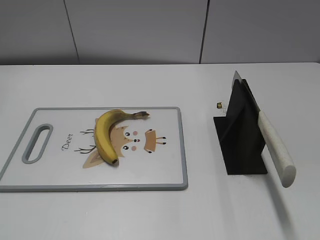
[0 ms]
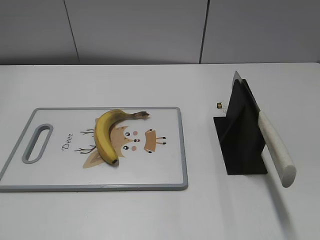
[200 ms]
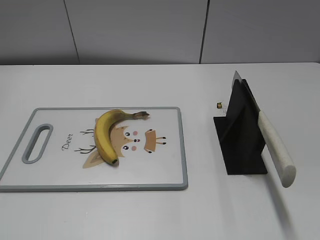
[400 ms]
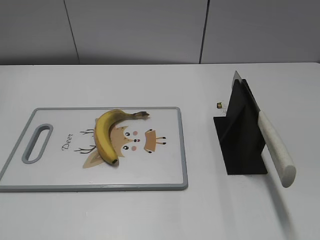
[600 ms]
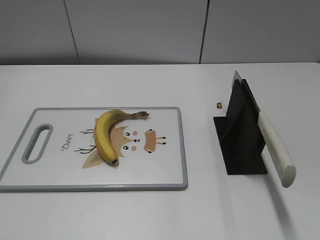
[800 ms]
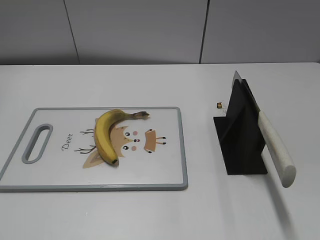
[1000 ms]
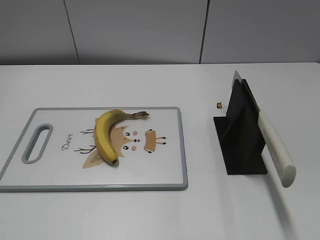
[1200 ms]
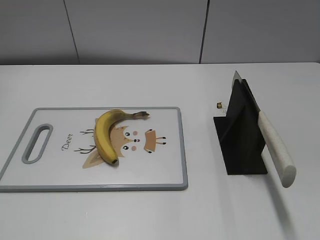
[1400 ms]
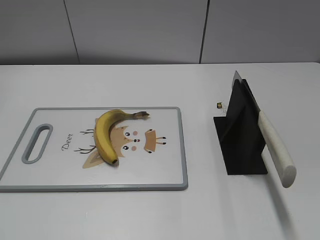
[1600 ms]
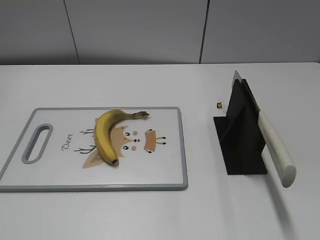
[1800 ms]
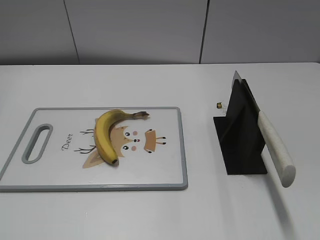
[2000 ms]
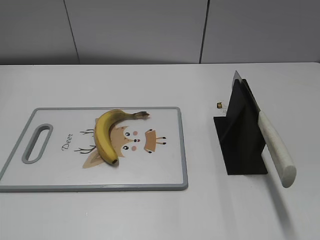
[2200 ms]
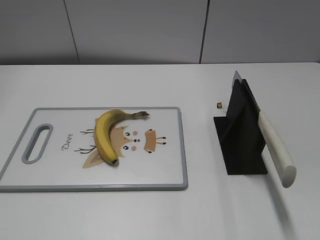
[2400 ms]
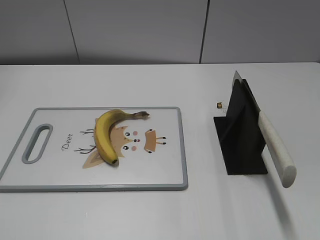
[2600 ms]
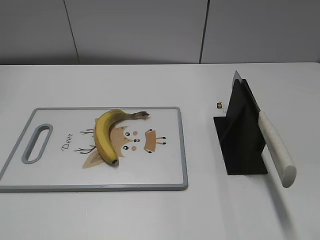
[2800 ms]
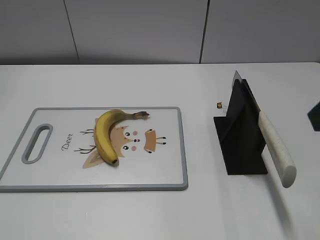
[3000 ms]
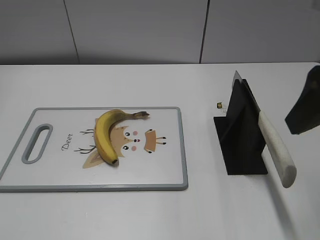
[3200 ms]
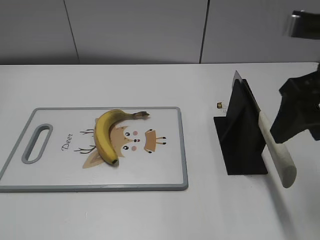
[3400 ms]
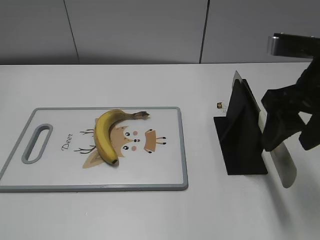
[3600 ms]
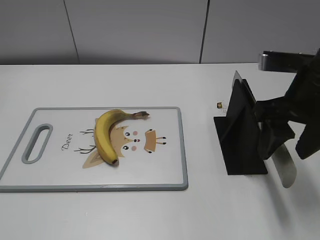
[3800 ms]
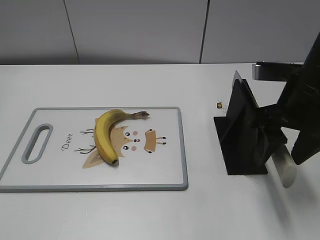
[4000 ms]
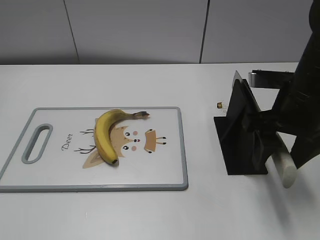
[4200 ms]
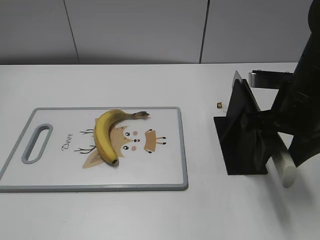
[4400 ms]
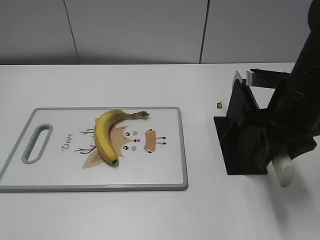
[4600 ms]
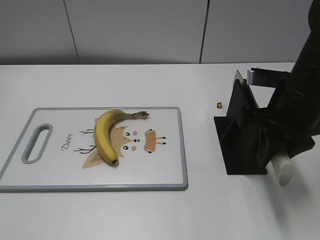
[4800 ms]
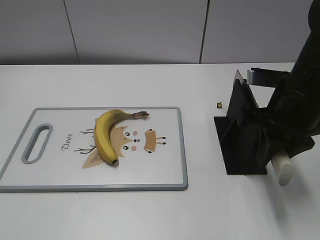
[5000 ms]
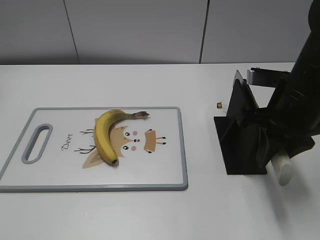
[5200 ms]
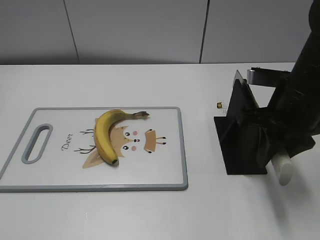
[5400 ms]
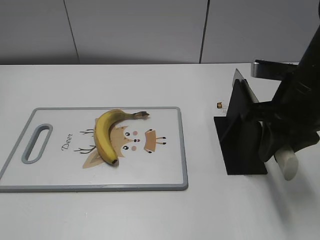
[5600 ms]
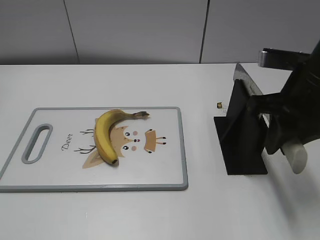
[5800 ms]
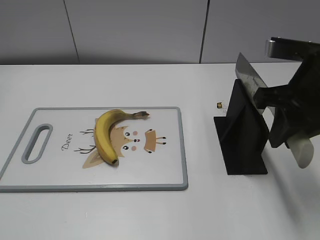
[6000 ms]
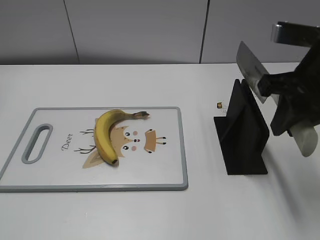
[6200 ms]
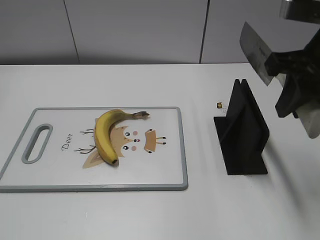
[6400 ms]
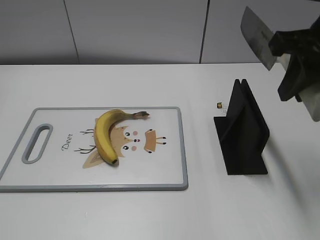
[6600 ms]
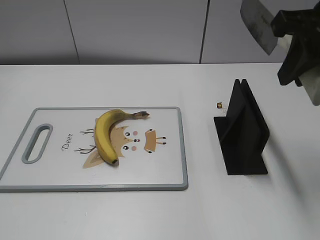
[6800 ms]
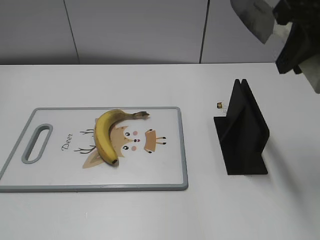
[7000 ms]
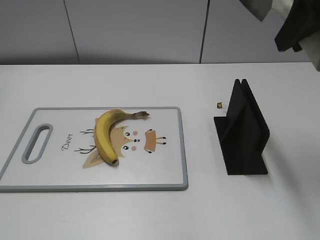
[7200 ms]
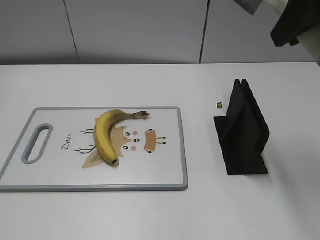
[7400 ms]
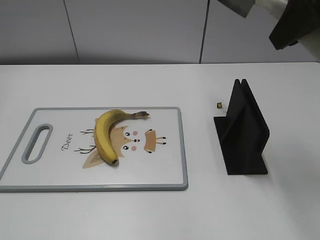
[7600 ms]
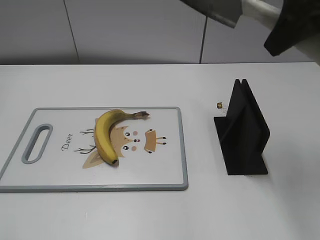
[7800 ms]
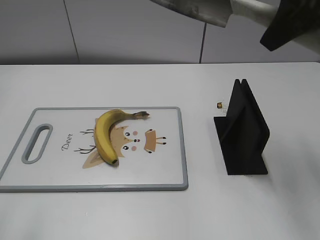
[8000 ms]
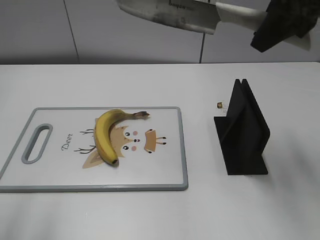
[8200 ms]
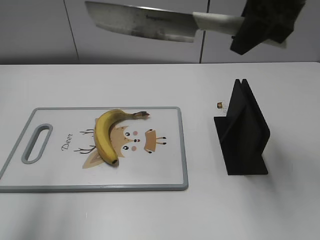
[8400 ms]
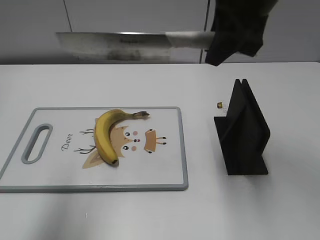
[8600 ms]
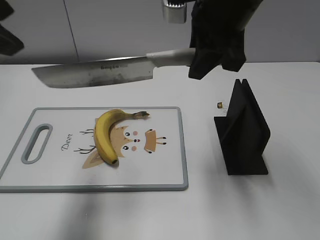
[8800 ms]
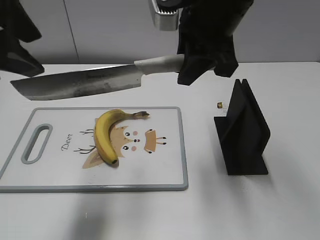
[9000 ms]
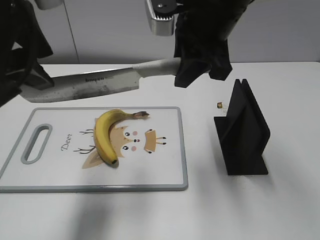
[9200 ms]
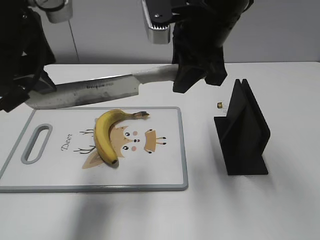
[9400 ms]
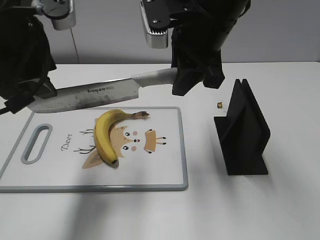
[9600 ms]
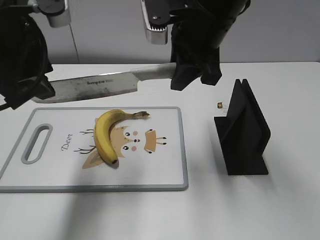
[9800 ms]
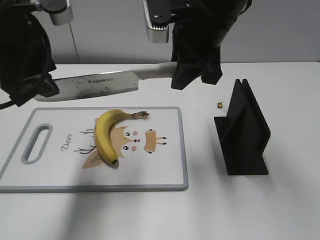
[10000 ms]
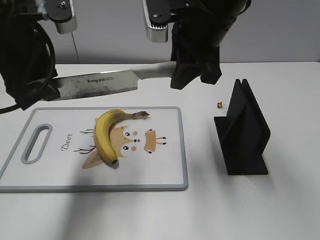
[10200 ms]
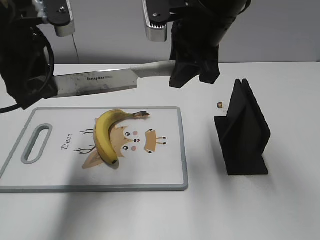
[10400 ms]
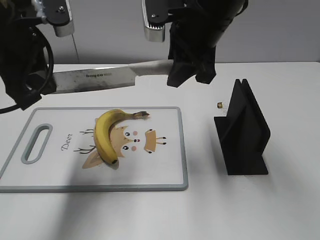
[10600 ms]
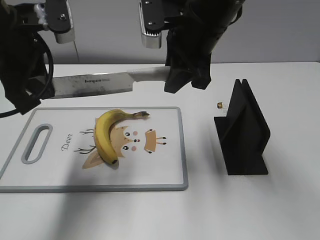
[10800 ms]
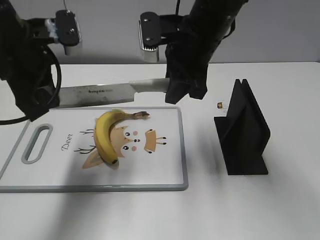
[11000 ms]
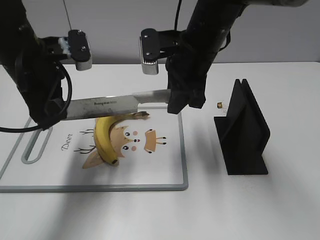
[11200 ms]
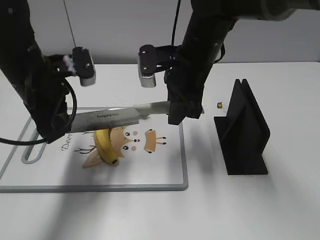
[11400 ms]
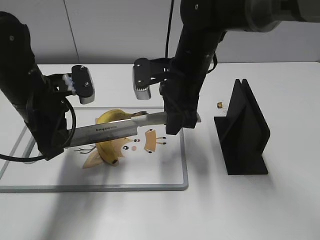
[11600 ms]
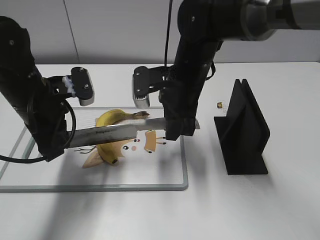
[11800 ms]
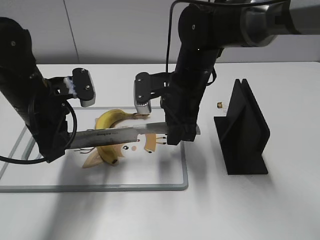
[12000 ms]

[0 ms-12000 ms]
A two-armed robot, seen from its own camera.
Task of the whole recording: cut banana.
Step, 0 ms to 6600 ms: Grab the knife handle with your right hand.
3000 ms to 4400 ms: The right gripper shifts approximately 15 cm downward and forward.
4400 ms to 6000 ms: The right gripper closes up.
6000 ms to 7600 ms: The right gripper moves upward, about 15 cm.
7600 ms to 9000 ms: The left gripper goes some 25 cm forward and to the right. The right gripper heads to the left, downward and forward, covering roughly 15 cm.
9000 ms to 10400 ms: The left gripper moves downward and forward, approximately 10 cm, and closes.
10400 ms to 12000 ms: Both grippers travel together downward, roughly 10 cm. The left gripper closes up.

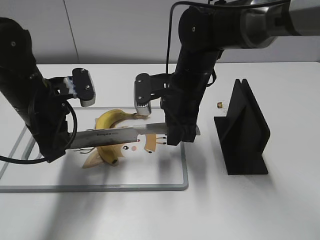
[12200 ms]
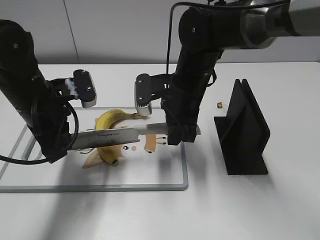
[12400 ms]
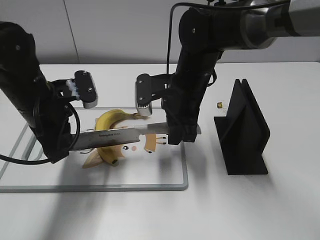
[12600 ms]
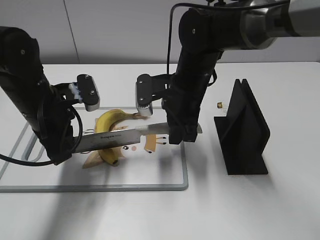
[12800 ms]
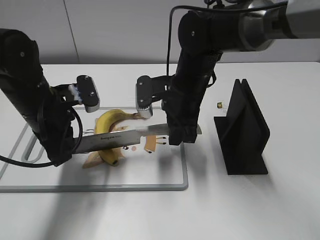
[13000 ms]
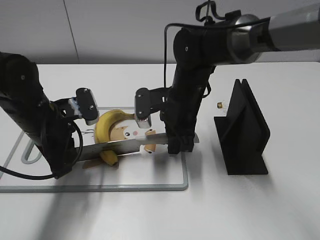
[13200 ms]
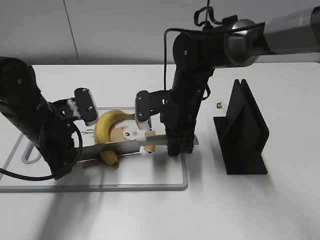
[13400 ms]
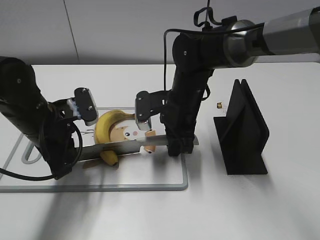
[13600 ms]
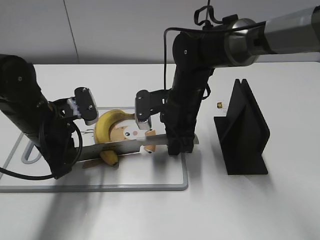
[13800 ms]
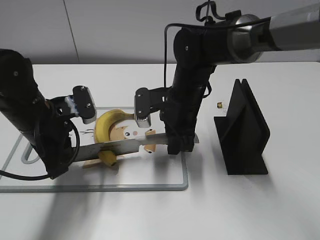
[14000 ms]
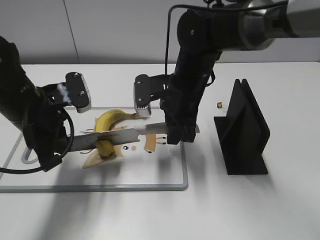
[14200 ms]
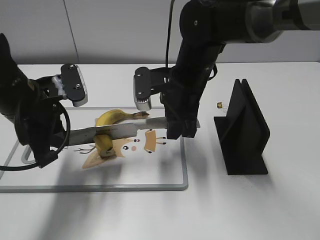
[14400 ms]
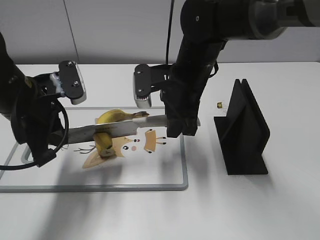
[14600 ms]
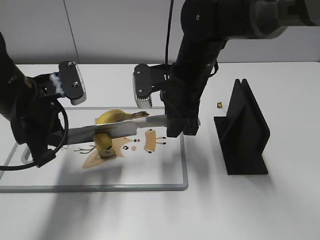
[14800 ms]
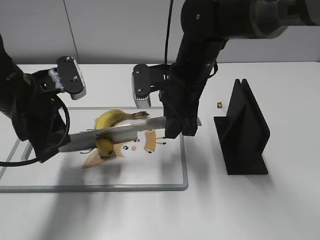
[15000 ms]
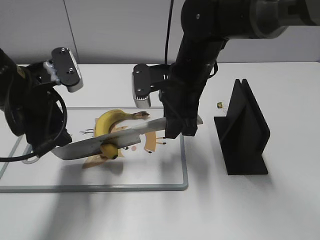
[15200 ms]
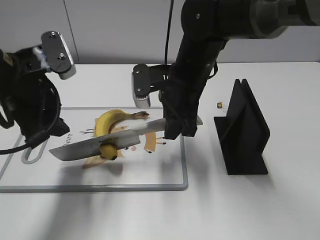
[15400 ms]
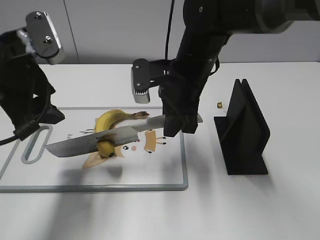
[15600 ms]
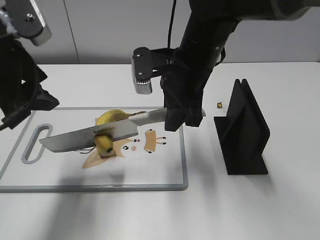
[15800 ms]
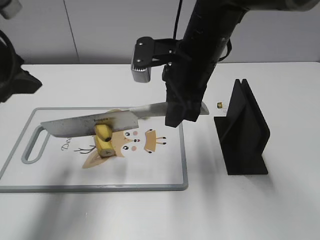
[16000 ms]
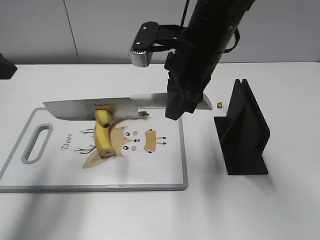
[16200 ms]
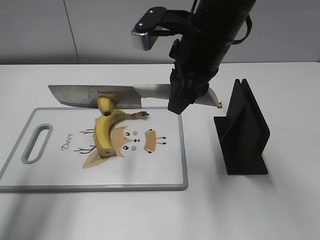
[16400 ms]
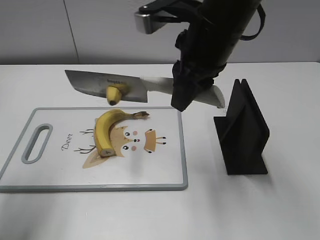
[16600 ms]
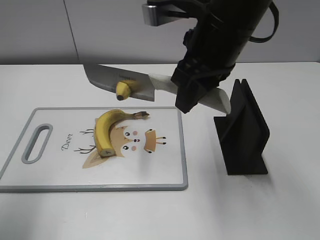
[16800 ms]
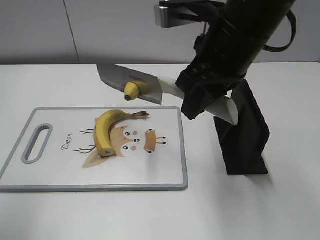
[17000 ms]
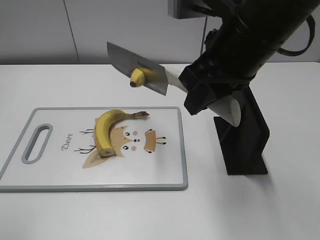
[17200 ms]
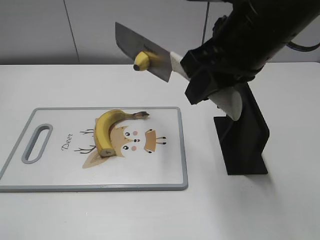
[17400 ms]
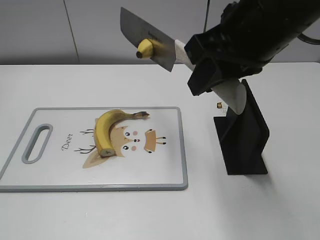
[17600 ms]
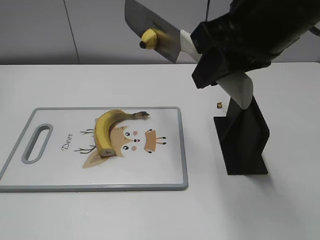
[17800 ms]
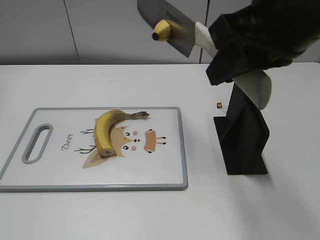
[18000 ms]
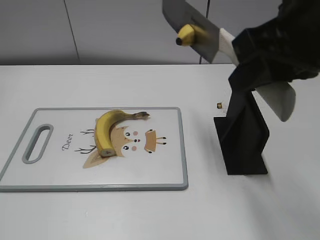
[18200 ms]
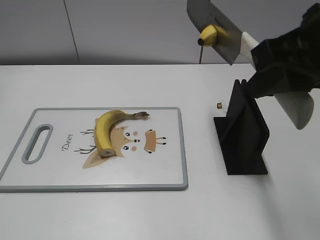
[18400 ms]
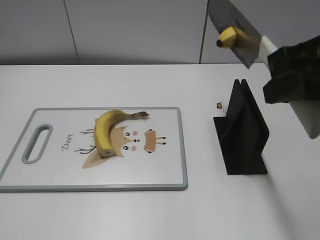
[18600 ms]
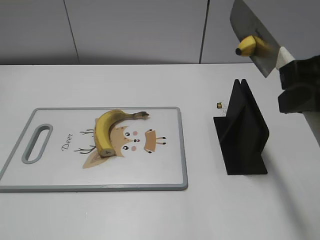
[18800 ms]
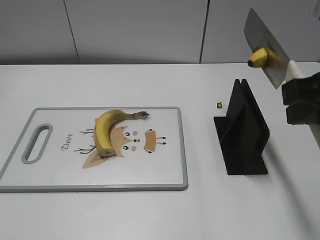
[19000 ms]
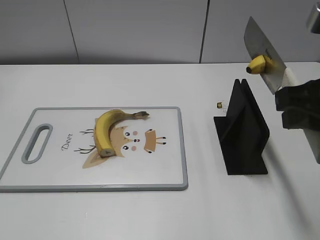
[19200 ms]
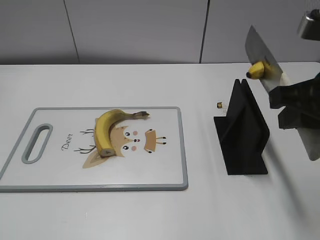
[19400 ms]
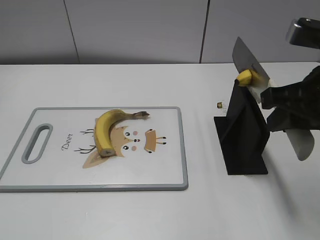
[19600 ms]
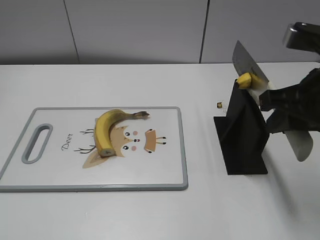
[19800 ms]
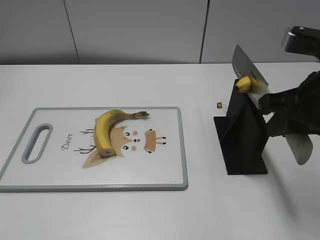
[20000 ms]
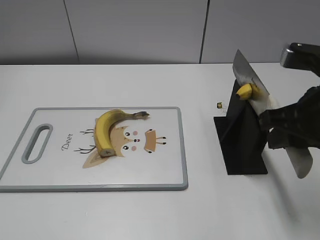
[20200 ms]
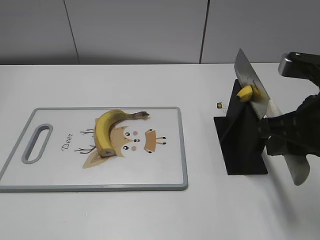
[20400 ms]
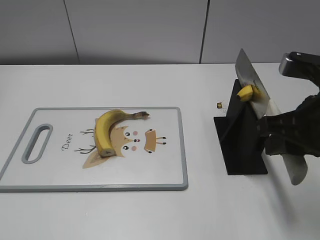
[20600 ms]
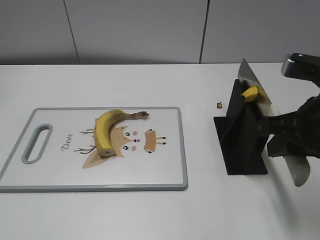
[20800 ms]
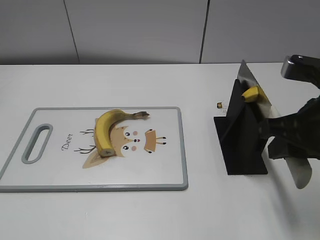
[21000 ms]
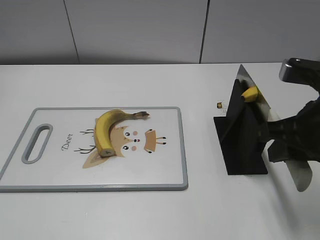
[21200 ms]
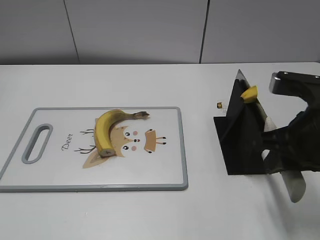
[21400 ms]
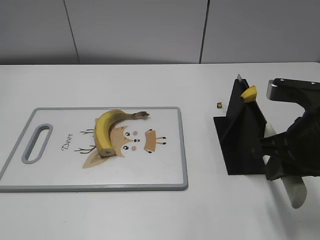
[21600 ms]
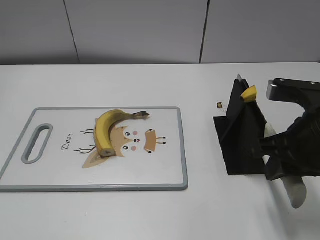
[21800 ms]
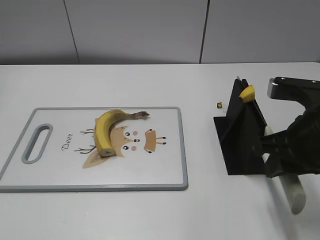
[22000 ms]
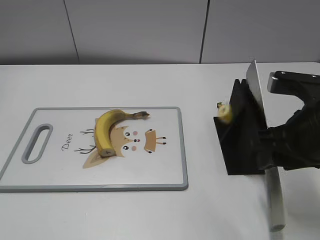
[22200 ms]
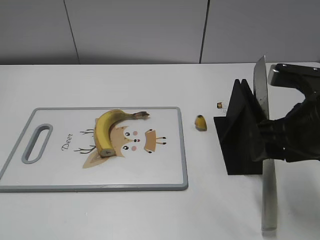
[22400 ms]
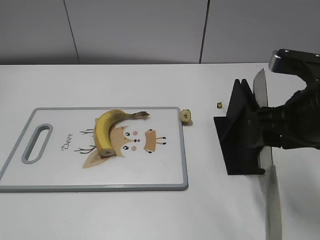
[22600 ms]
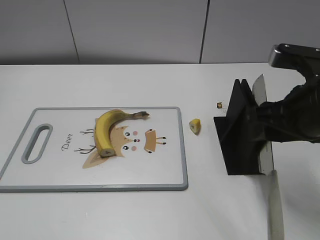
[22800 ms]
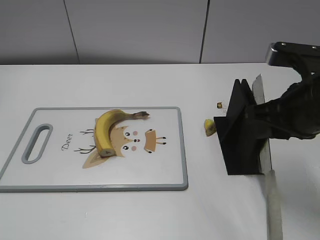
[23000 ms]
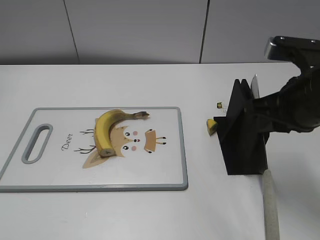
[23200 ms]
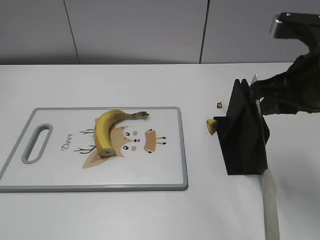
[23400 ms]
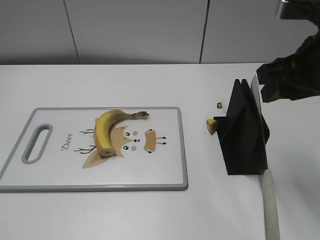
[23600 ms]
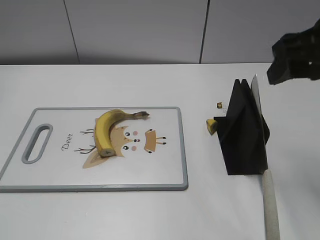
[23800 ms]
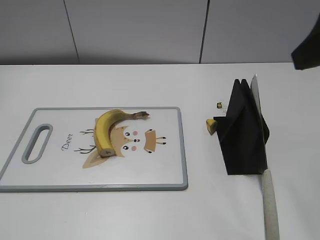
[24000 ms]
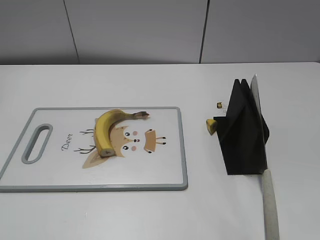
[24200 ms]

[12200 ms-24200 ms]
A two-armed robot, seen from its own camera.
Task of the whole recording: cut banana.
Step, 13200 ms to 17000 ms: Cut the banana with your right hand.
Step, 17400 ms to 18600 ms: Lift the knife with your right hand.
13800 ms to 15200 ms: The two grippers go about 5 cm upward. The left gripper opens up.
15200 ms to 16600 ms: The left gripper travels upward, to the left and backward by some 15 cm. Meanwhile the right gripper moves upward, about 10 cm.
16600 ms to 18200 ms: The left gripper is displaced backward by roughly 25 cm. Meanwhile the right gripper shifts about 15 cm backward, to the right and upward.
18200 ms to 19800 ms: The right gripper goes roughly 10 cm downward and to the right.
19800 ms to 21200 ms: There are only small adjustments of the grippers.
21200 ms to 22600 ms: The right gripper opens its fingers.
22600 ms to 24200 ms: The right gripper moves upward and backward, approximately 20 cm, and closes, then reopens.
